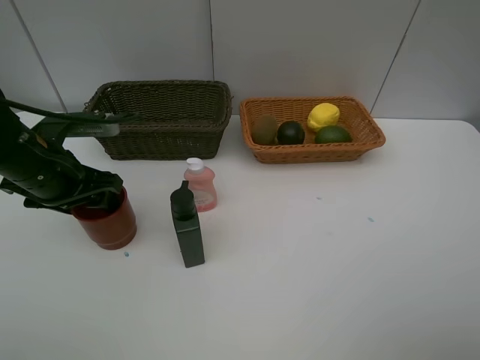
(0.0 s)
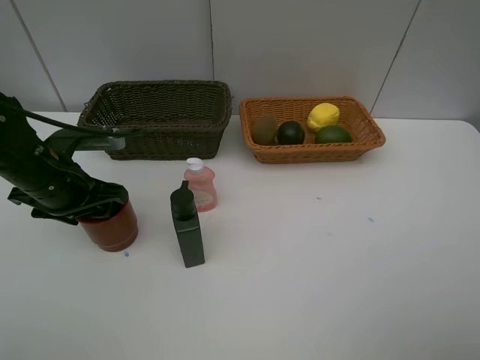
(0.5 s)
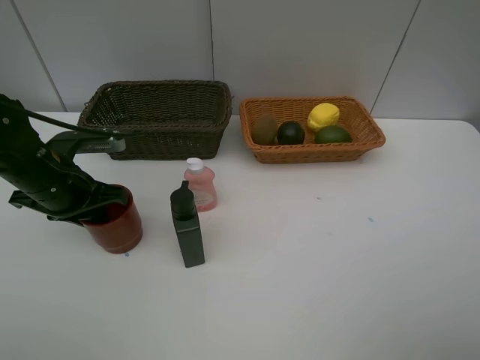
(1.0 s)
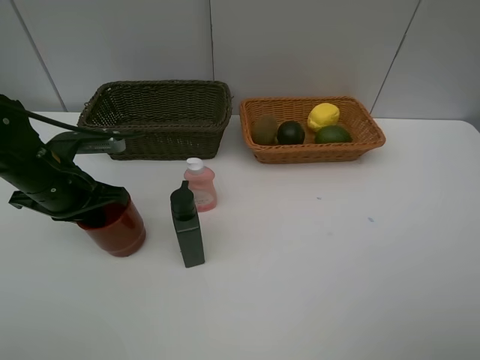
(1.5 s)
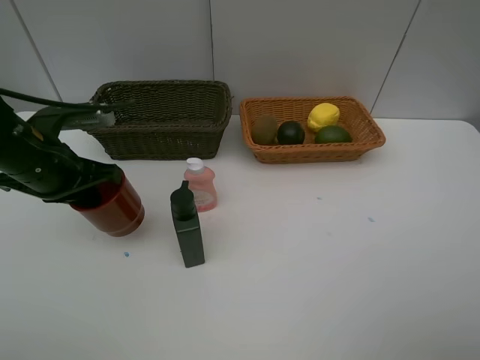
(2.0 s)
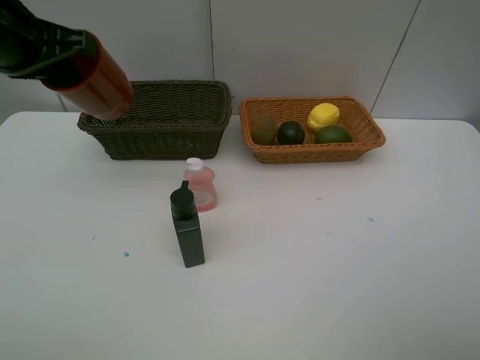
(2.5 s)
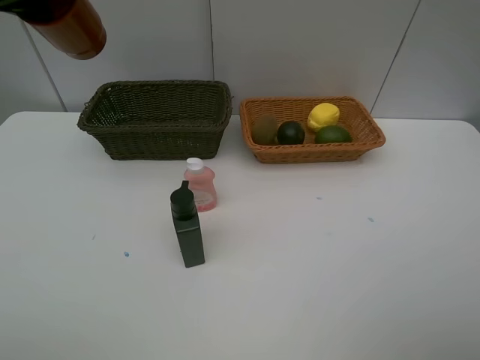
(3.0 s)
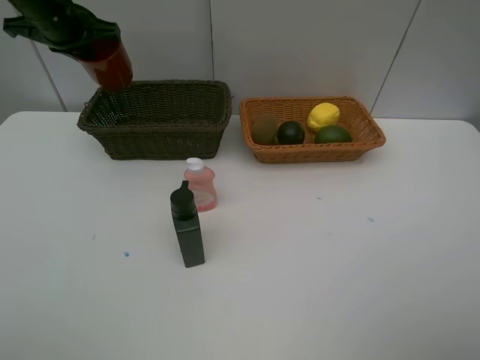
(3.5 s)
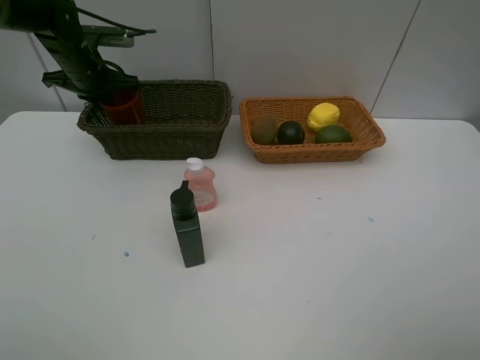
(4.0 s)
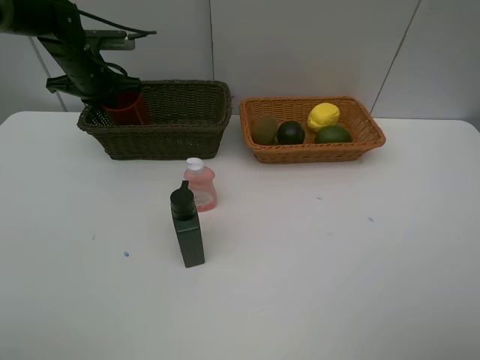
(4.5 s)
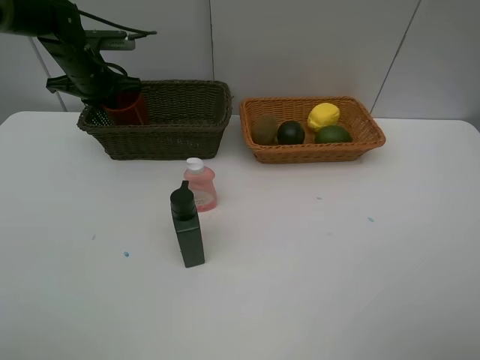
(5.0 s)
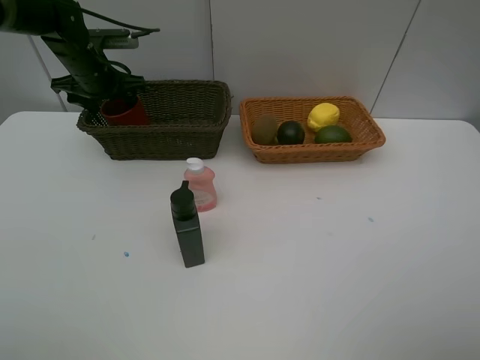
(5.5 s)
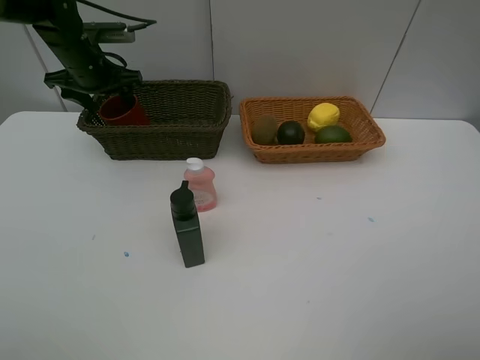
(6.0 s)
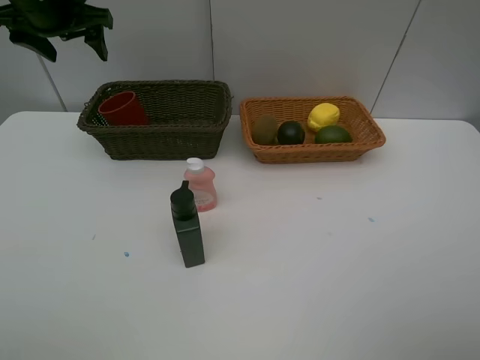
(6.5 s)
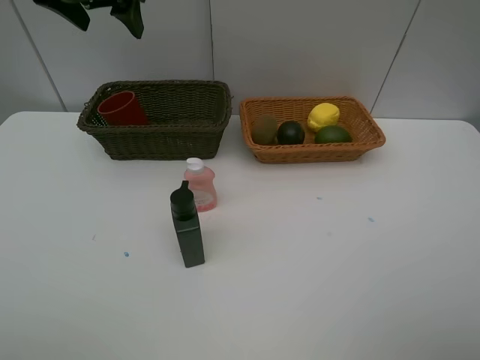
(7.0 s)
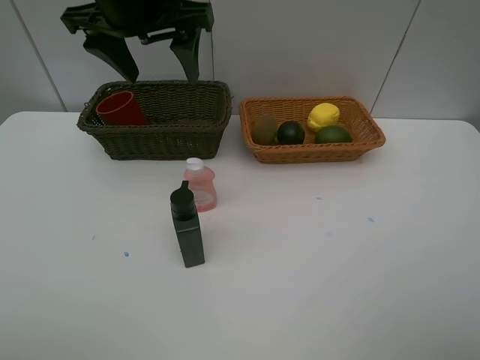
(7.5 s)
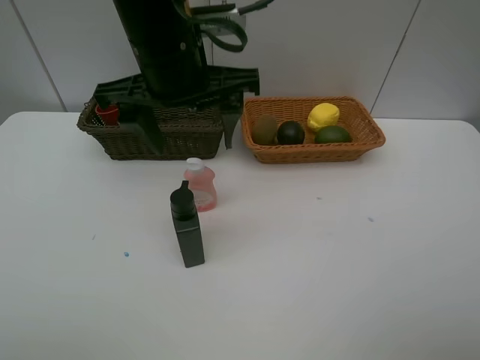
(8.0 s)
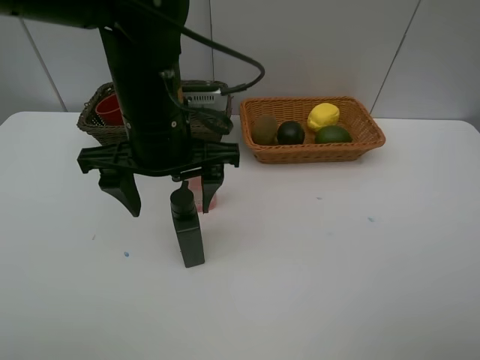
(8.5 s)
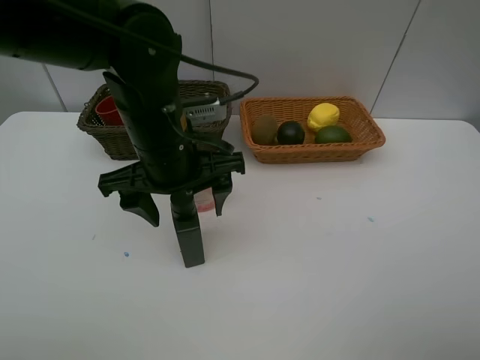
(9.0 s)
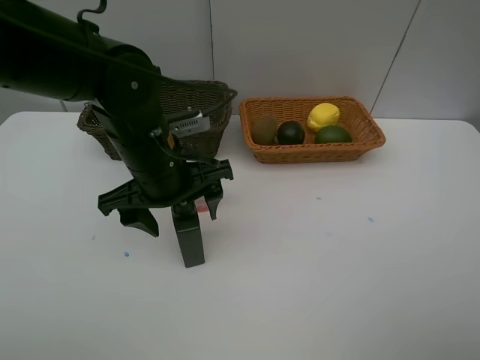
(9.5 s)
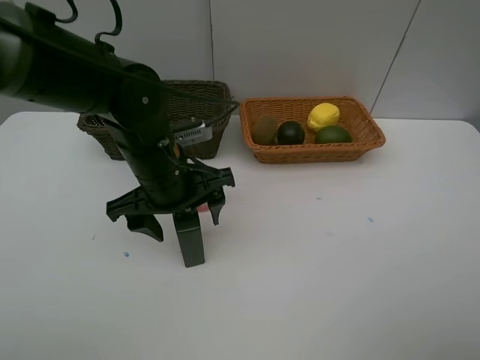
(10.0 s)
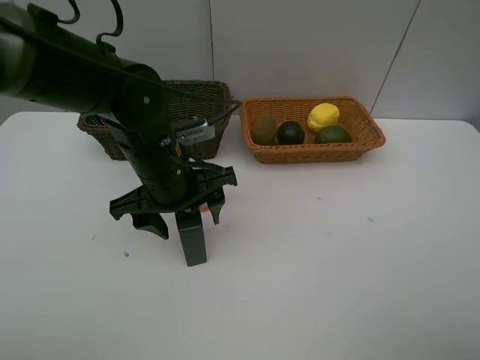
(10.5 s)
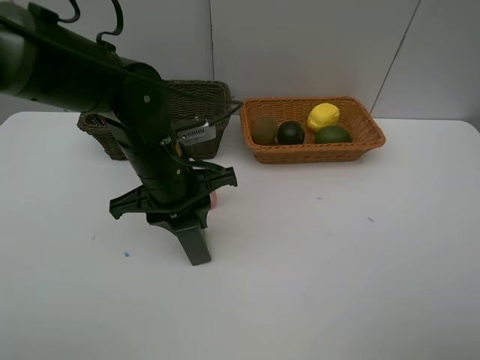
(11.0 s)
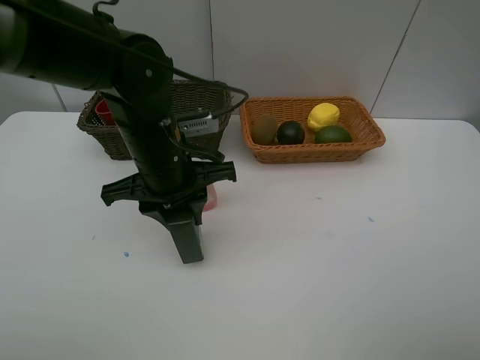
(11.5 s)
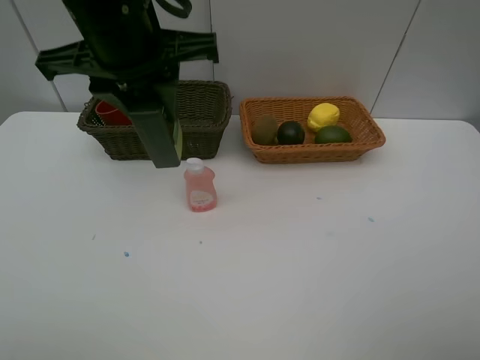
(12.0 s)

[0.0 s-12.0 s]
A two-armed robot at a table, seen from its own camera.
Task of the whole recording: Place multiple objects separately in different baskets.
Step, 2.0 to 6.0 s: Place the dark brown cup in the dark basket with left gripper.
Step, 6.5 to 11.5 s: Pick up the hard facial cleanser with left gripper.
0.0 to 2.0 s: The left gripper closes up.
2.0 to 4.0 s: The left gripper is displaced forward by roughly 20 cm.
4.0 to 6.0 s: The left gripper opens.
6.0 to 8.0 s: The left gripper heads backward, to the right and upward, covering some 30 cm.
8.0 to 10.0 s: The left gripper shifts approximately 15 cm downward.
10.0 to 12.0 s: The left gripper moves upward, roughly 20 cm, and closes its fingers.

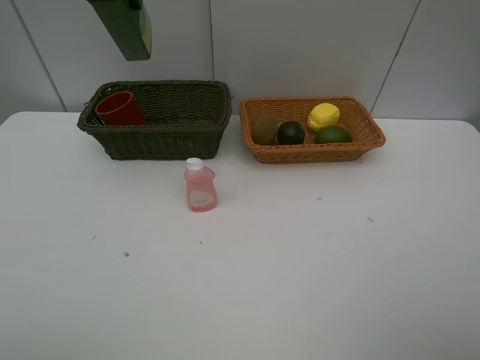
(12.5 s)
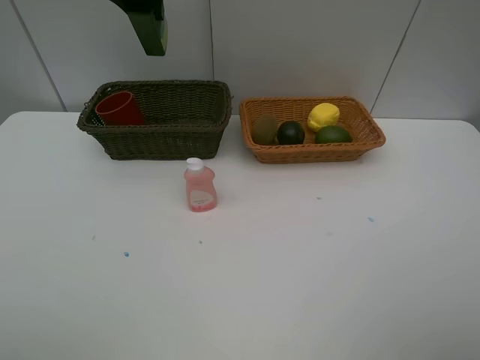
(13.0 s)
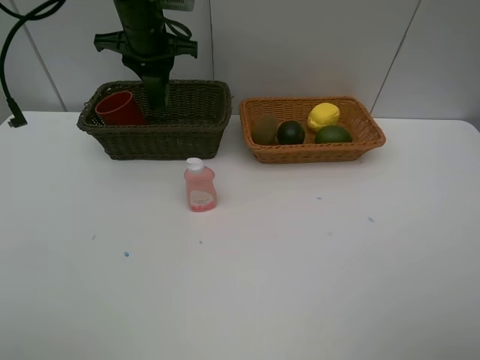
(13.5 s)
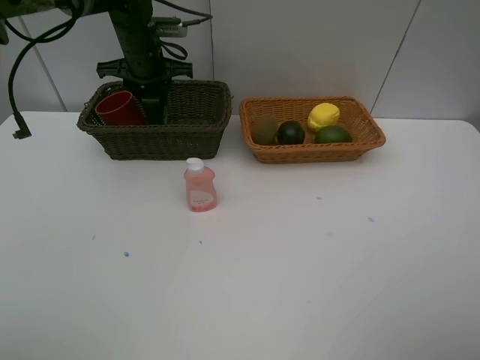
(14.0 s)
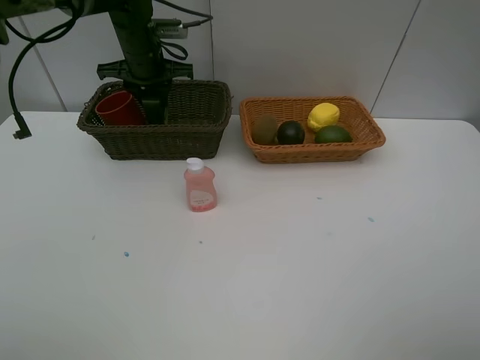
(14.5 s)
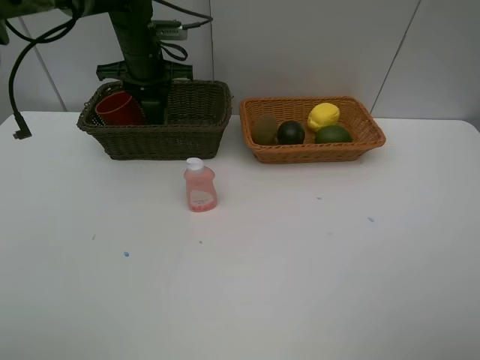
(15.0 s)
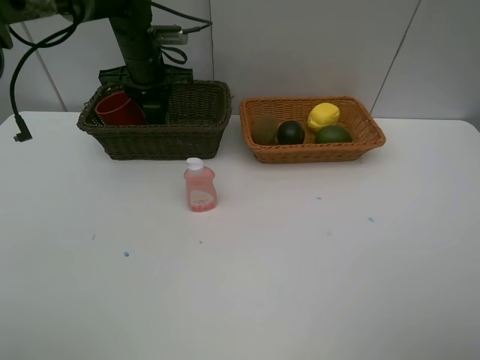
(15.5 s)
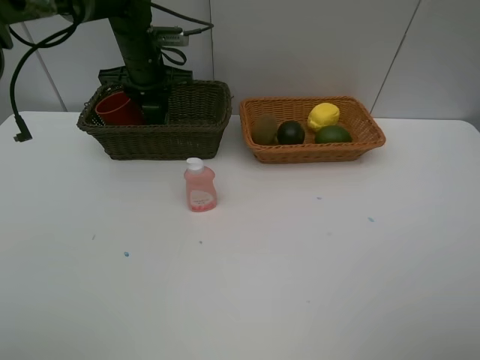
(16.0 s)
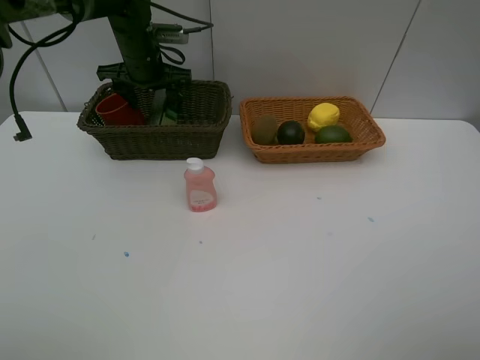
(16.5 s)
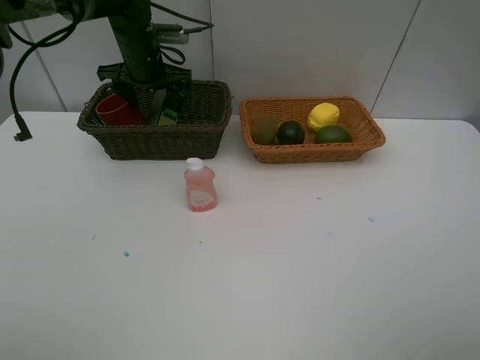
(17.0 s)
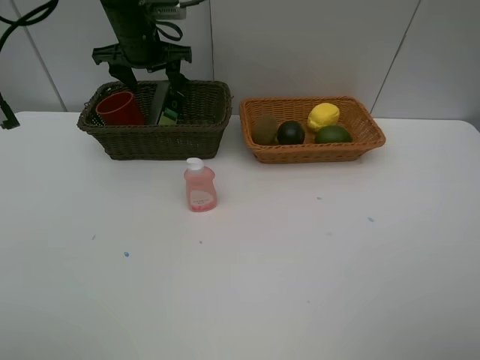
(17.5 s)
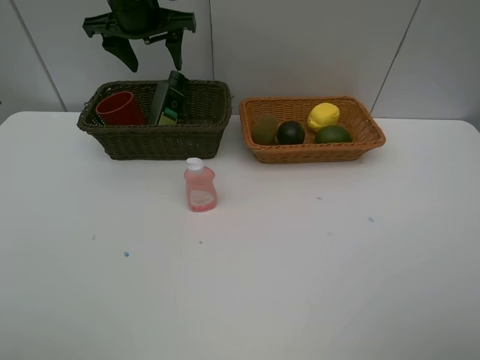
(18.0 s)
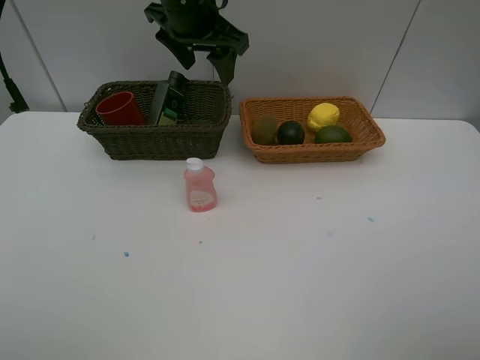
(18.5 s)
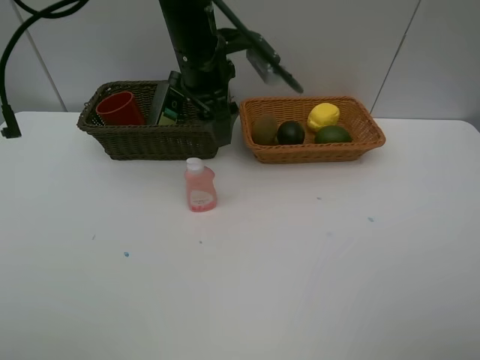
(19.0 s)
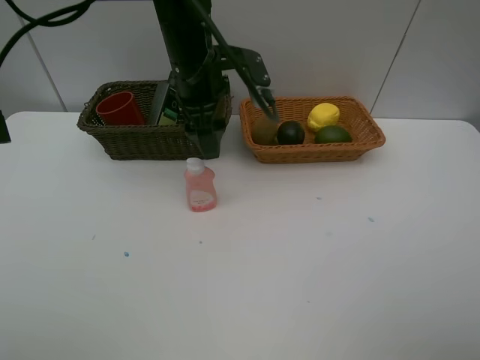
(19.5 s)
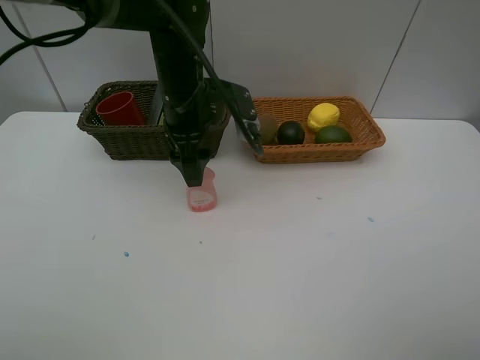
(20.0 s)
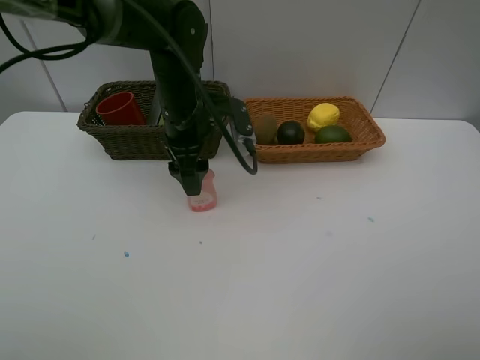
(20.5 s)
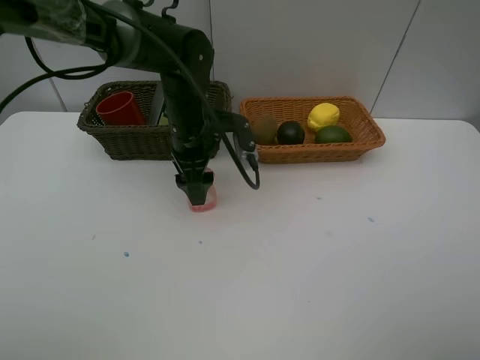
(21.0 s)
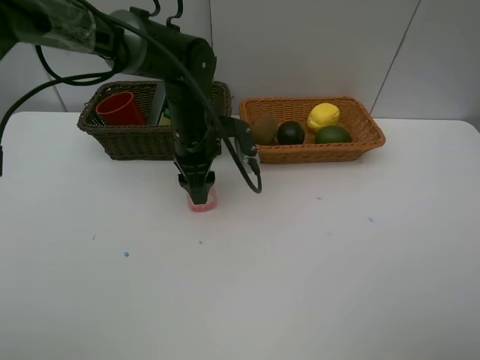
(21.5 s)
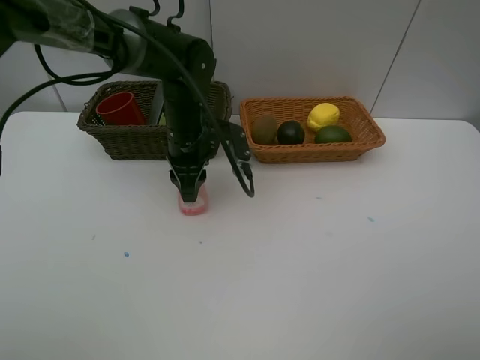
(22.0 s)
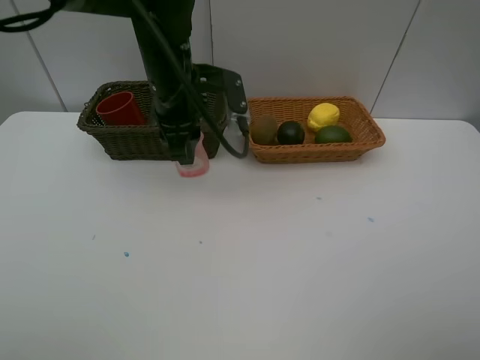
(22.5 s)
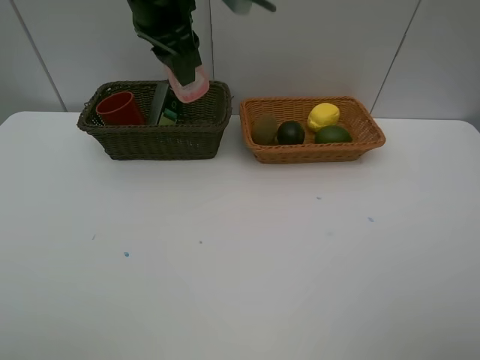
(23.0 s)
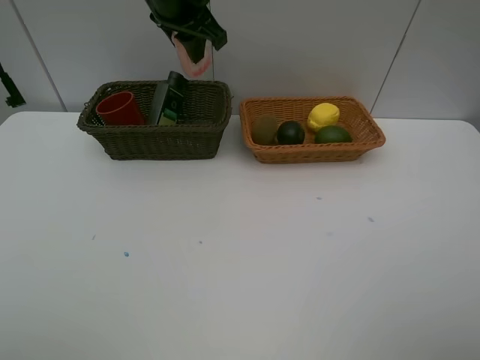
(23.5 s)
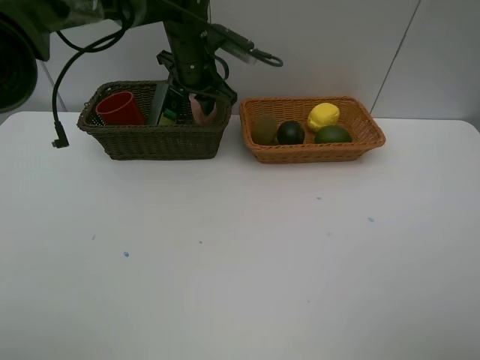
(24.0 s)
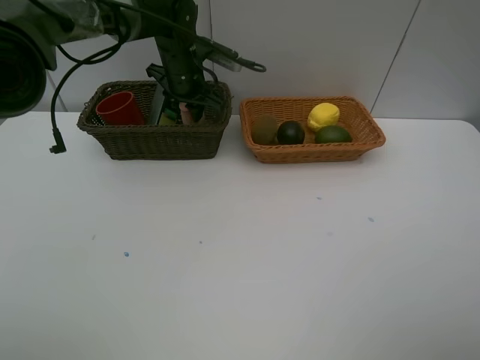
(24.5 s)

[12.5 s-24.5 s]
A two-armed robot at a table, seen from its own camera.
Task of the whole recording: Place multiple objects separately in different baskets.
Step, 12.5 to 17.5 s: Place the hard facial cleanser in the dark basket with left gripper.
Step, 18.0 to 22.0 s: Pick up the laundry detergent with left gripper.
12.5 to 14.5 s: The left gripper shifts about 25 cm downward and forward.
14.5 to 16.5 s: The left gripper opens.
16.5 to 18.5 s: The left gripper shifts about 15 cm upward, to the right and backward.
18.5 to 20.5 s: The left gripper moves downward and backward, approximately 15 cm.
20.5 to 22.5 s: The left gripper closes up.
22.5 to 24.5 s: The left gripper is displaced forward by approximately 15 cm, and goes upward and returns, some 10 cm each way.

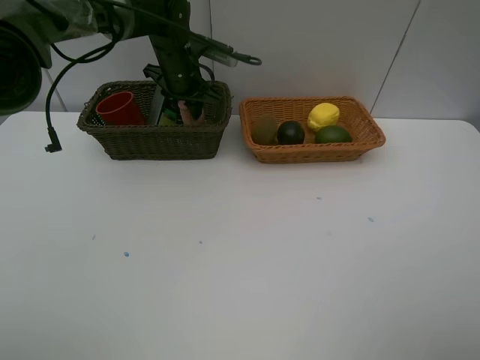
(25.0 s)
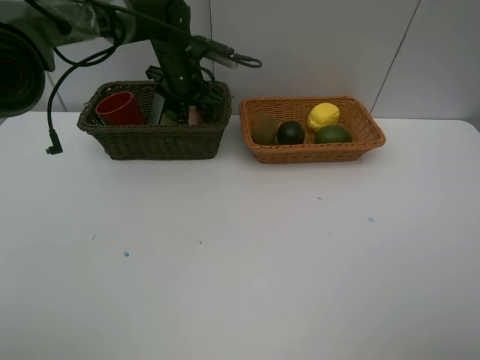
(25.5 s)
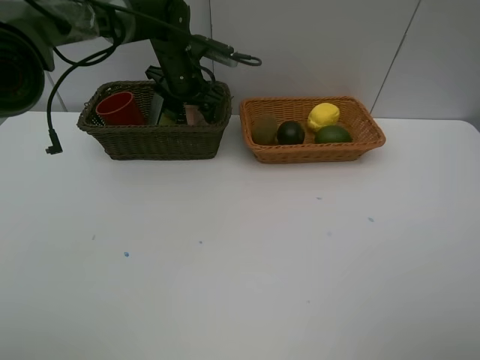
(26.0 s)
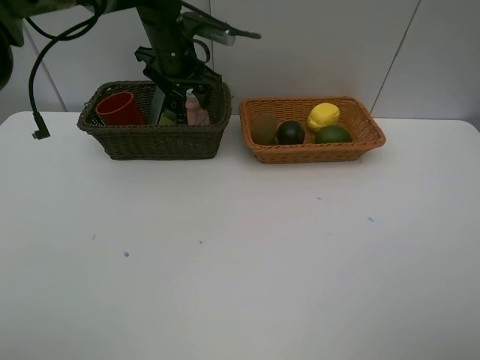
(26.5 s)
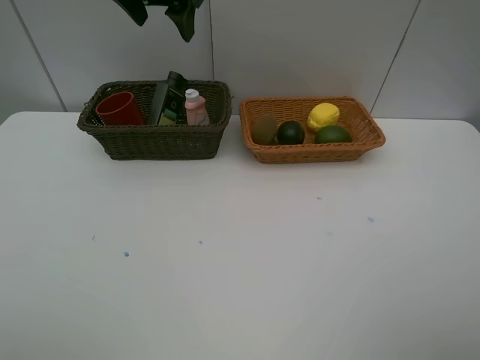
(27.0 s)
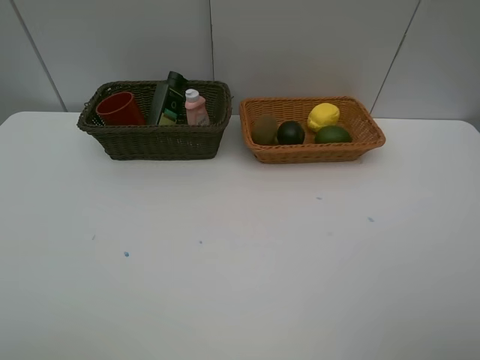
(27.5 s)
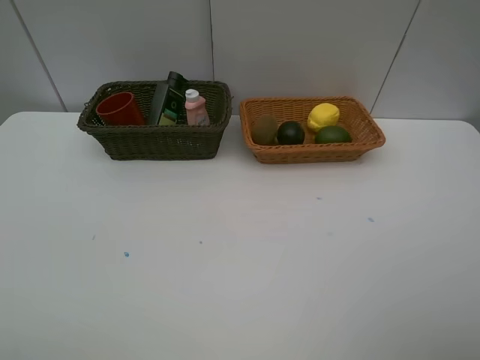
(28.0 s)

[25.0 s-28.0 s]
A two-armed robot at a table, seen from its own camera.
Task of the whole recording: Place multiple objects separately in different baskets.
25.0 to 26.5 s: The left gripper opens its fingers.
26.5 to 28.0 s: The left gripper heads backward, upward and to the left, covering some 40 cm.
